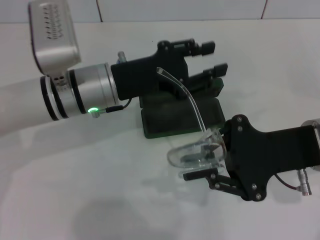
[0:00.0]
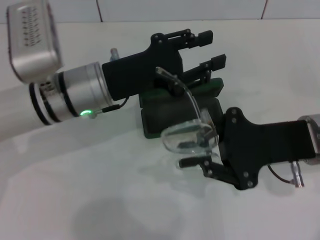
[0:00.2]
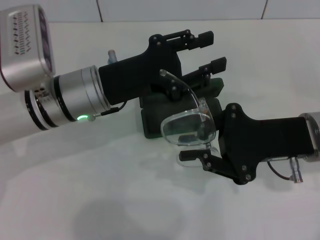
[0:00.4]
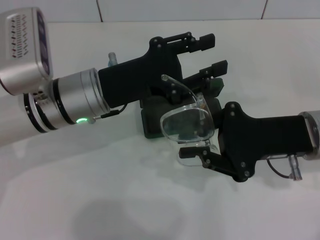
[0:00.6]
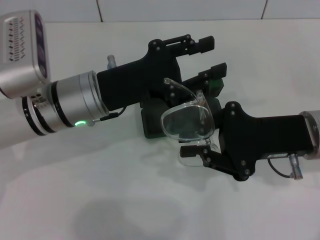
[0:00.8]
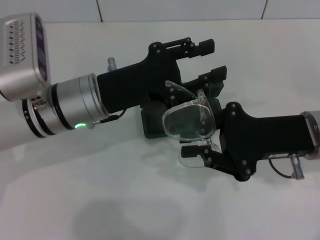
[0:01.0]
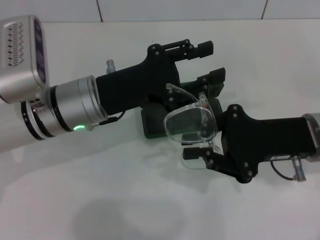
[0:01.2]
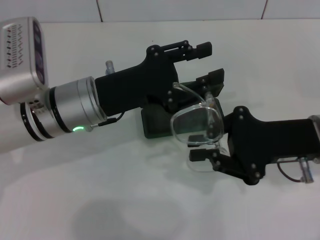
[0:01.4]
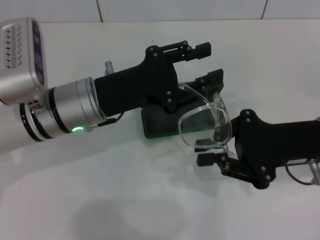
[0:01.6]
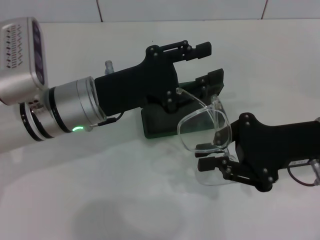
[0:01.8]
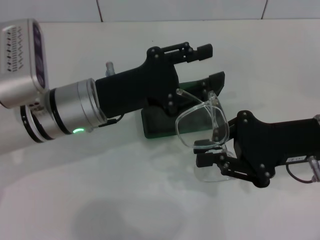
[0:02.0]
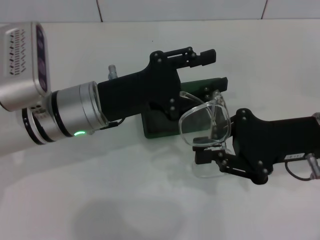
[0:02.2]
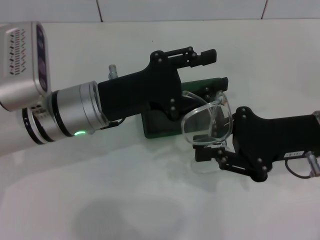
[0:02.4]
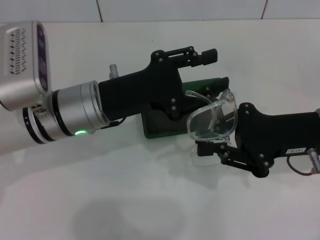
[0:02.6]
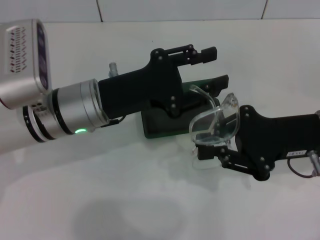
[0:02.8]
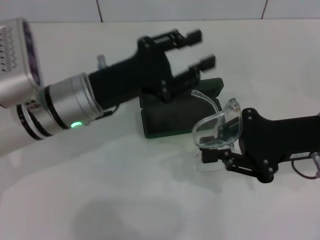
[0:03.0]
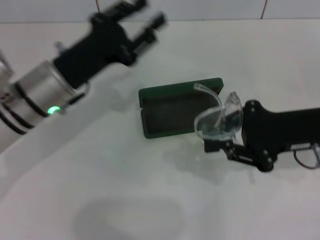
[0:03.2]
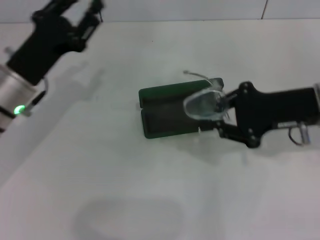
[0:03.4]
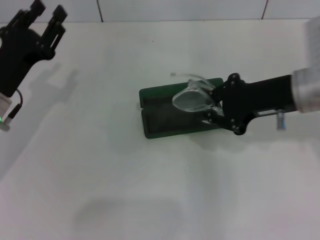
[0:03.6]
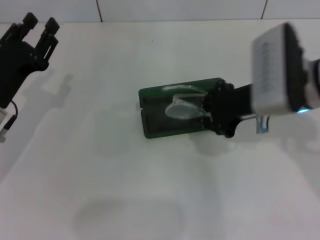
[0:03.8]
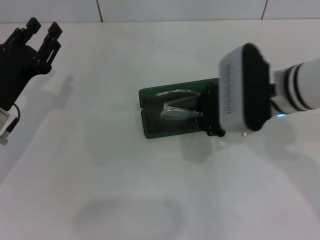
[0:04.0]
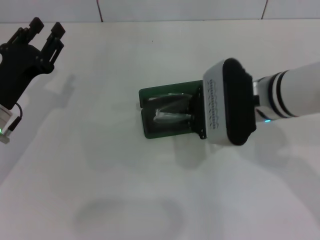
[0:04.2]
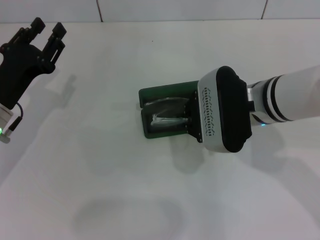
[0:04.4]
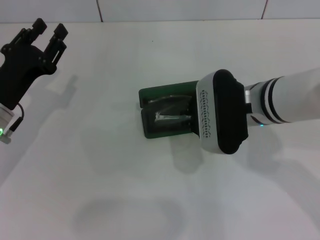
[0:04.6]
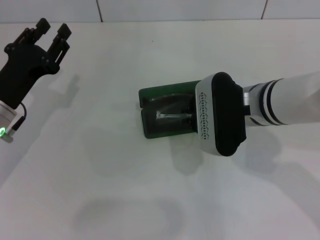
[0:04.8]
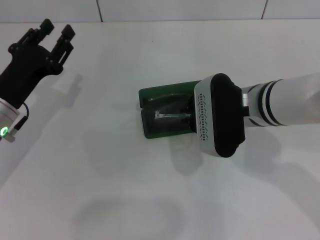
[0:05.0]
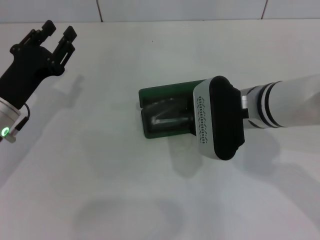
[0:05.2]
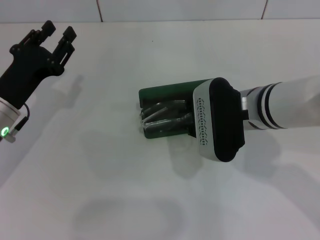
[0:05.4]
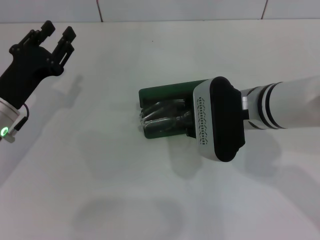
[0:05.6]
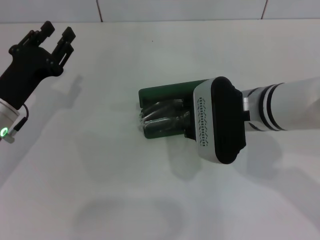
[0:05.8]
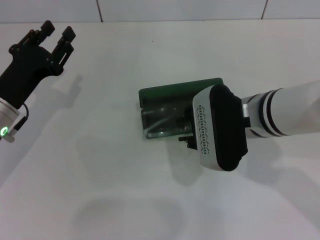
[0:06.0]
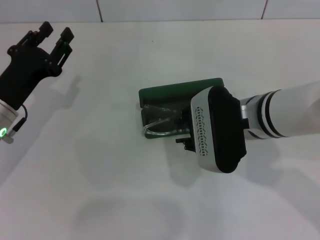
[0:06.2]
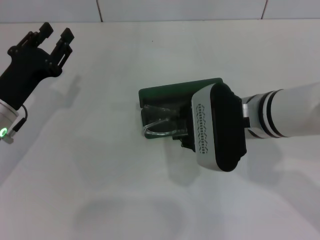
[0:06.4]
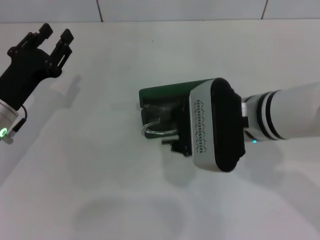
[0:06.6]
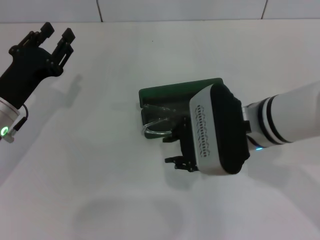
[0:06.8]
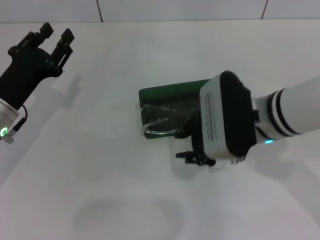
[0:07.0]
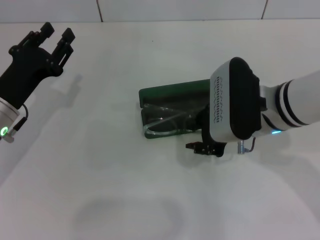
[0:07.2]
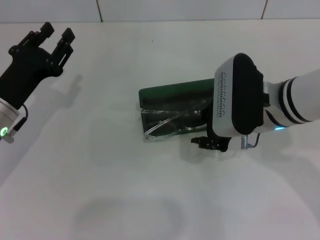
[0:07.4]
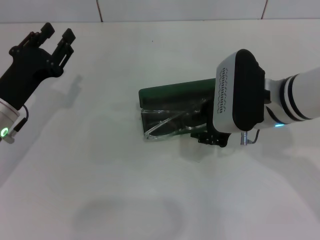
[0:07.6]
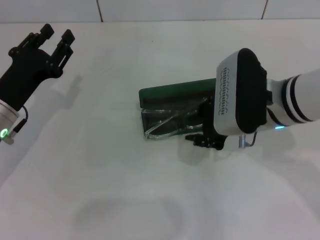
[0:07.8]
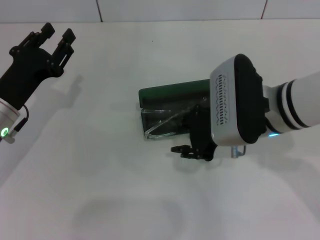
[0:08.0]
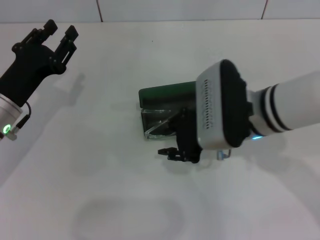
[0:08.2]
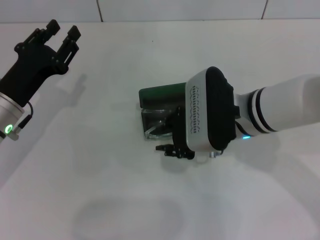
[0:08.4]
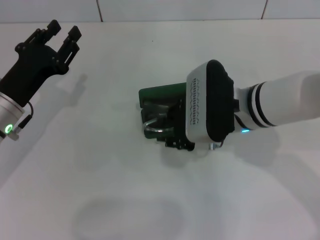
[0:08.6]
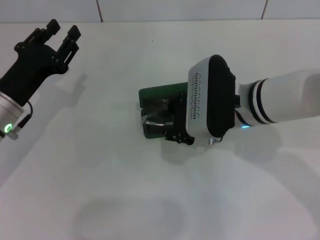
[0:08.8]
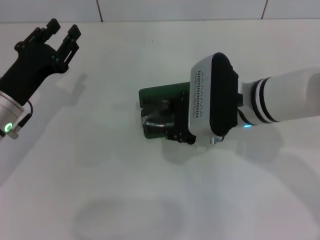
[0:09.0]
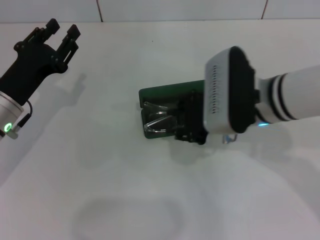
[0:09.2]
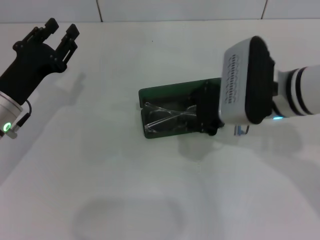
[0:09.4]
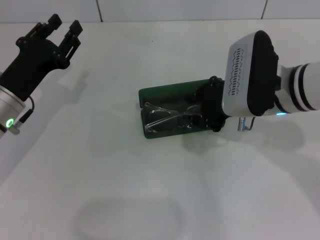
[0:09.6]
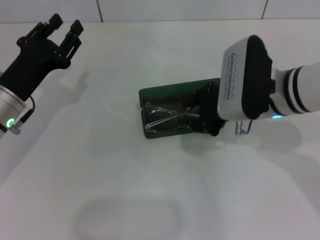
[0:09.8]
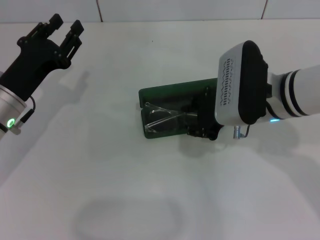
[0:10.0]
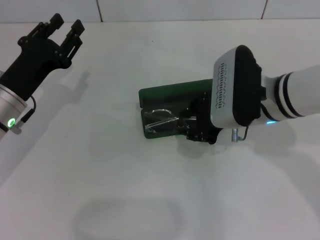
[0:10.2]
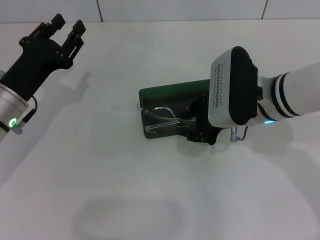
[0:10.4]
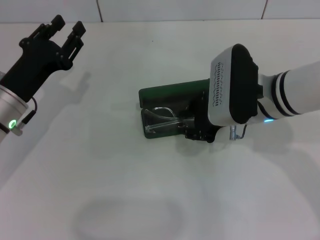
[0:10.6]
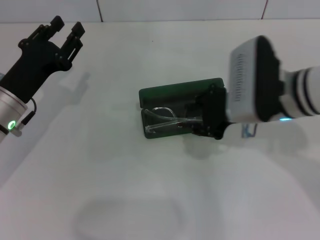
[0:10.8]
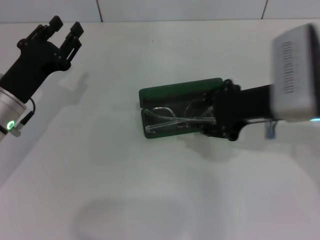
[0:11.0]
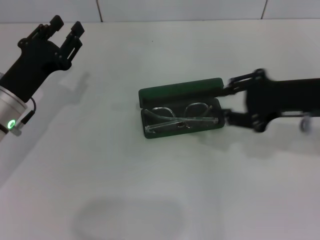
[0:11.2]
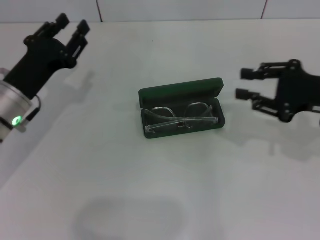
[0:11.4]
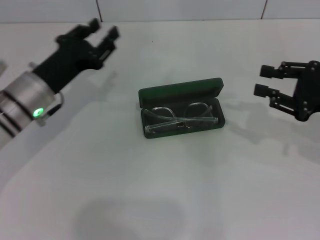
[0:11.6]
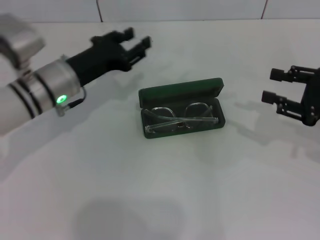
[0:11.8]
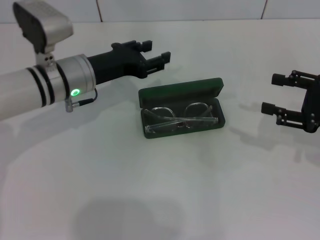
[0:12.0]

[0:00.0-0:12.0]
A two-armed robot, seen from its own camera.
Step, 0:00.0 to 0:02.8: Fold the frame with your left hand.
Step, 0:03.0 to 0:10.6: Put the glasses into the case with your right hand.
0:01.6 to 0:03.0: The grippers stay close to where they were, moving slightly.
0:03.0 to 0:04.4: The two grippers go roughly 10 cm to the left.
0:04.4 to 0:10.4: The grippers make only small movements.
0:10.4 to 0:12.0: The right gripper moves to the right, roughly 20 cm, while the left gripper moves to the right and forward, approximately 10 cm.

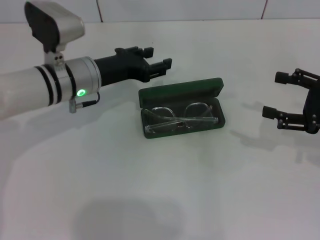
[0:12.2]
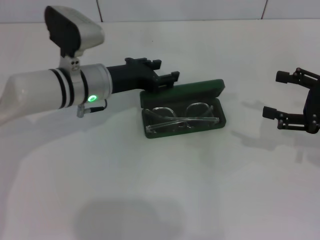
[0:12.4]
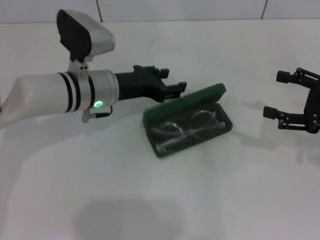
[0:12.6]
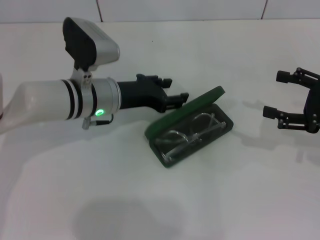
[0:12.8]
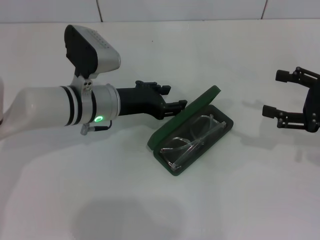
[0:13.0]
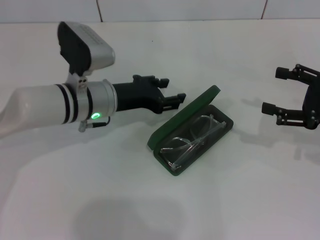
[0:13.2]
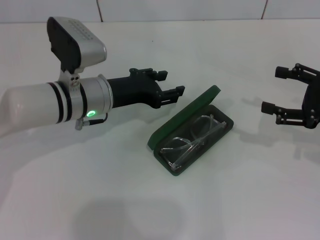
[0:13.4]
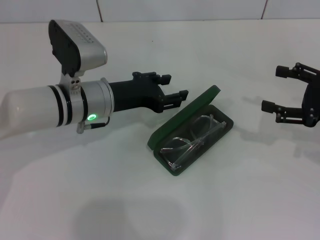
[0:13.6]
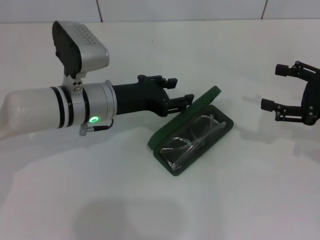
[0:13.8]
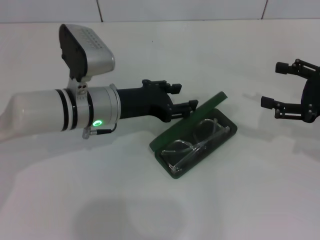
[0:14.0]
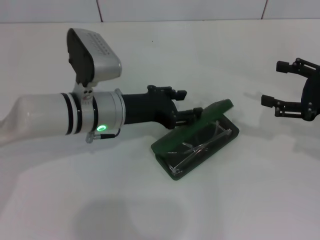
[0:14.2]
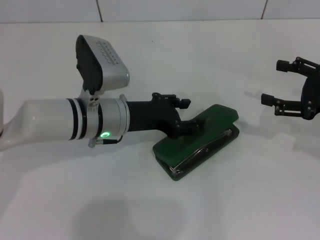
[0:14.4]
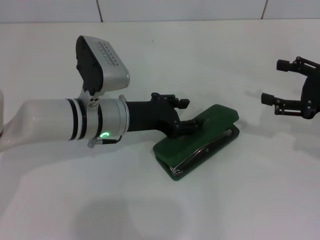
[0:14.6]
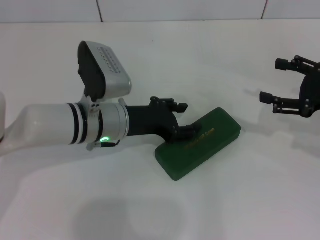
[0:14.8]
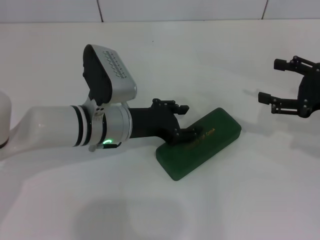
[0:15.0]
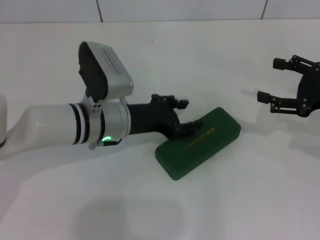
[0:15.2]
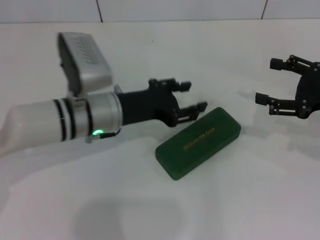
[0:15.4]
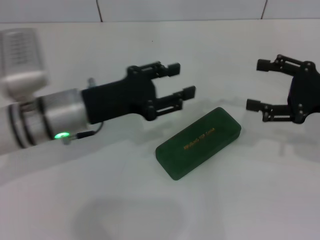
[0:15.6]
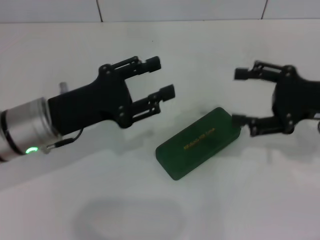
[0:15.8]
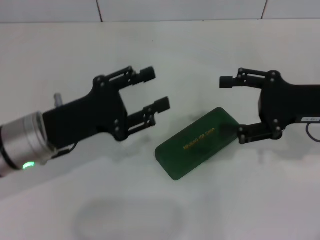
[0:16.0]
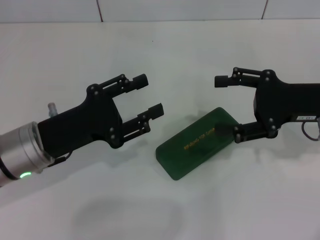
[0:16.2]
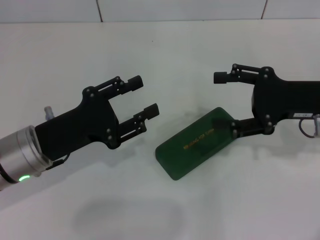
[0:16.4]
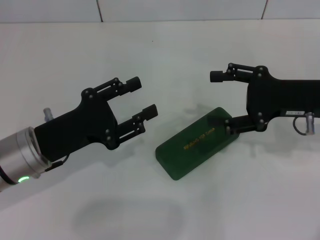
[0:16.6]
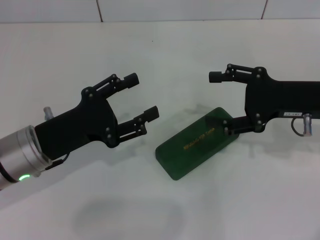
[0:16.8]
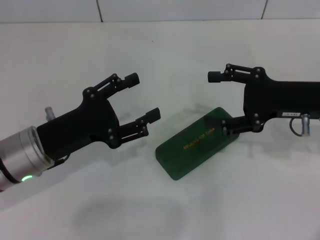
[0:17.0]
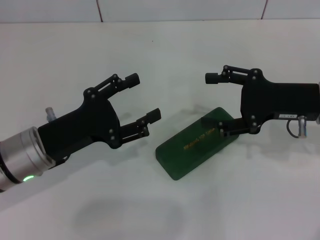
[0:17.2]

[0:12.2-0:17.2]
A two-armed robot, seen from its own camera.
Step, 0:12.2 to 0:15.2: Close the glasses case with your left hand.
0:12.2 to 0:13.8: The grippers move only a little.
0:13.8 to 0:15.6: The left gripper moves roughly 5 cm.
0:15.6 to 0:17.2: The right gripper shifts some 5 cm to the left. Meanwhile the left gripper moves backward, roughly 5 cm.

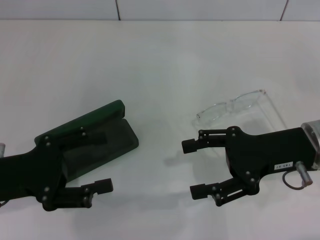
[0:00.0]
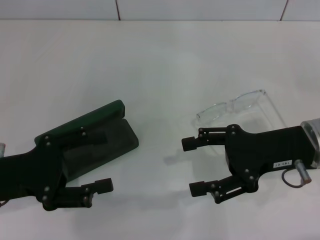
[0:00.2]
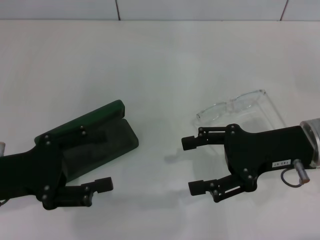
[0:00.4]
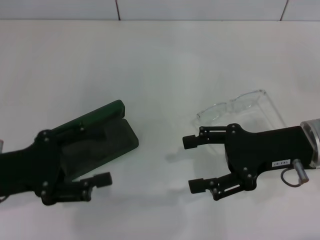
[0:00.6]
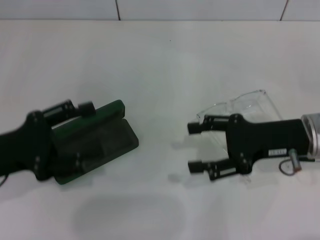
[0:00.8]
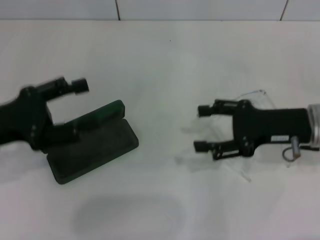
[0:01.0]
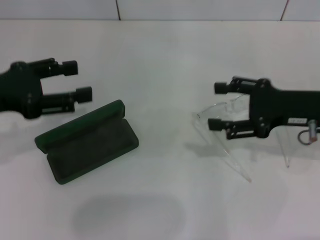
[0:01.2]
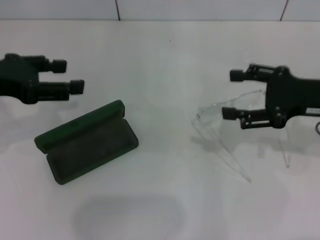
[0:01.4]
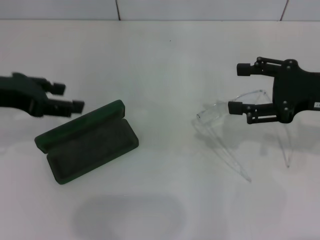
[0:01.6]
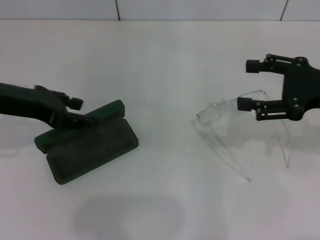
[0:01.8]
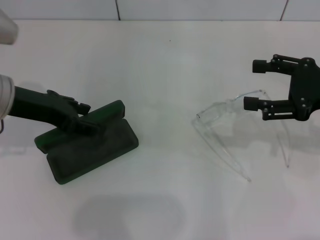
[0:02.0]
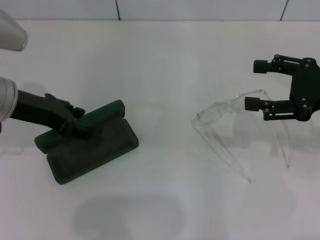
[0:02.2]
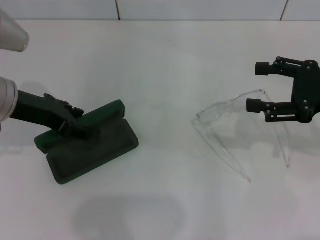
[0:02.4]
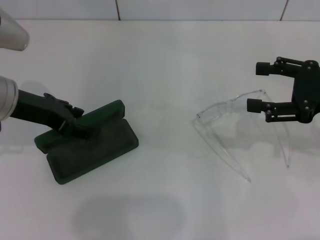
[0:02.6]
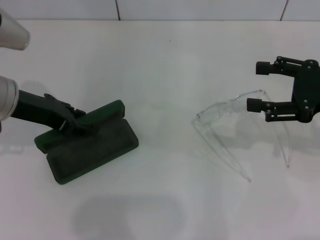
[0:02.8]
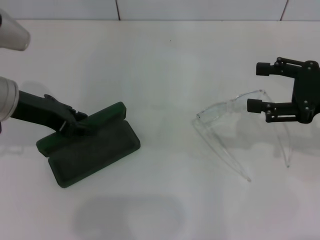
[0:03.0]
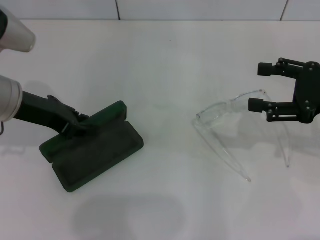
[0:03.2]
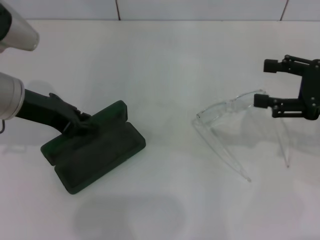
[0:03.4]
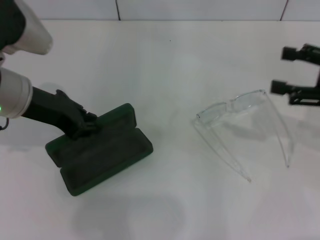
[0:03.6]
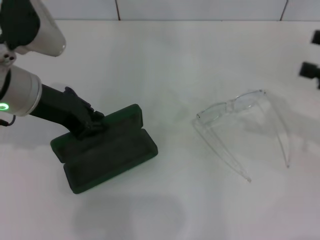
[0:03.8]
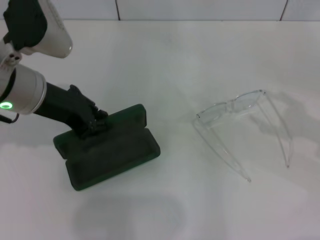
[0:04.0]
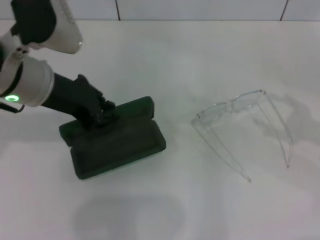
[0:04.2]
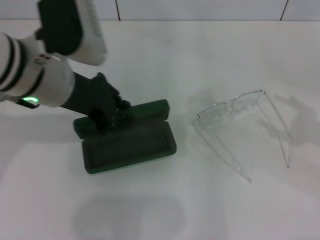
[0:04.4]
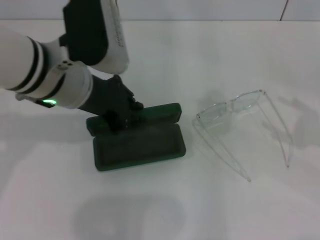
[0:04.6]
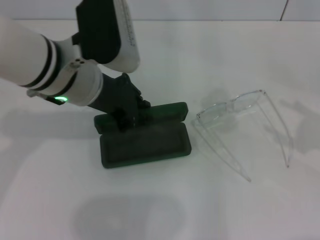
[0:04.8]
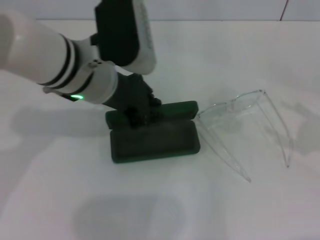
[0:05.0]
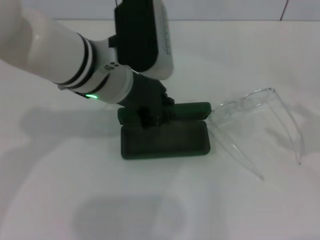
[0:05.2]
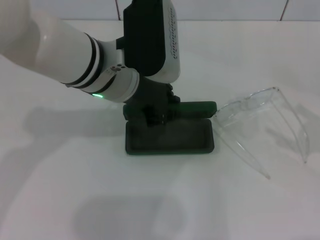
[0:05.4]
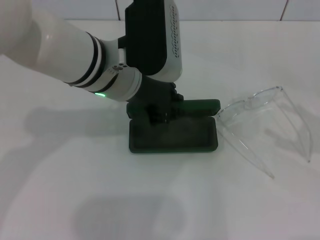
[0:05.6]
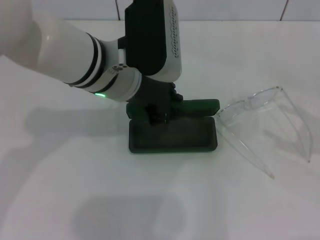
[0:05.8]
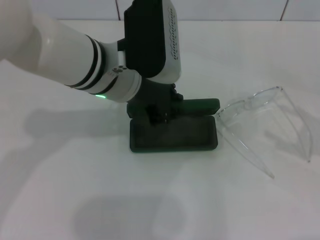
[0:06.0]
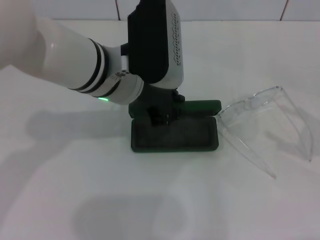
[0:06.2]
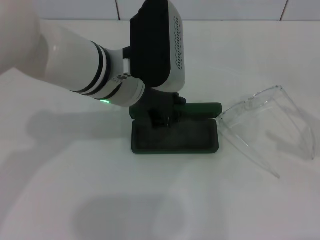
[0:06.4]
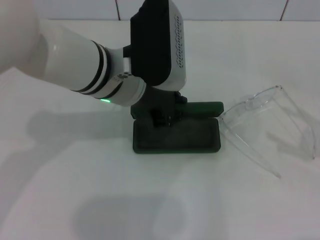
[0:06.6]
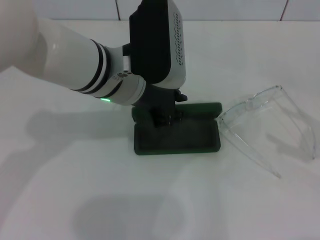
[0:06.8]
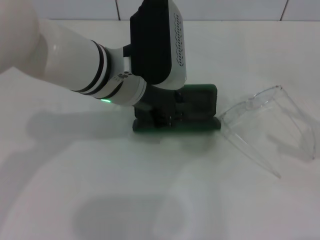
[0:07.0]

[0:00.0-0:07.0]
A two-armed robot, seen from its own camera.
Step, 0:00.0 to 0:03.2: Grab the glasses case with your left hand.
0:00.0 to 0:01.4: The left gripper shifts roughly 15 cm upward and forward. The right gripper goes roughly 5 cm to the right.
0:01.4 to 0:02.8: The left gripper changes place by about 10 cm.
0:02.8 to 0:04.2: Both grippers move to the right, about 5 cm. The left gripper closes.
0:04.2 to 0:05.6: The left gripper is displaced to the right by roughly 10 cm.
0:05.6 to 0:07.0: The two grippers keep their place.
